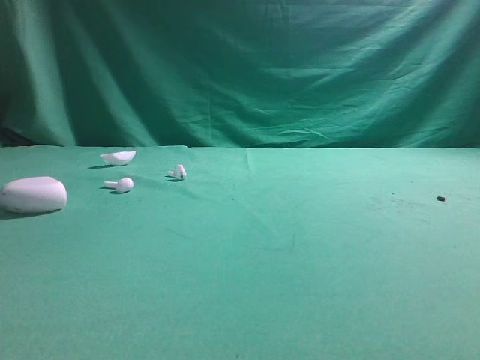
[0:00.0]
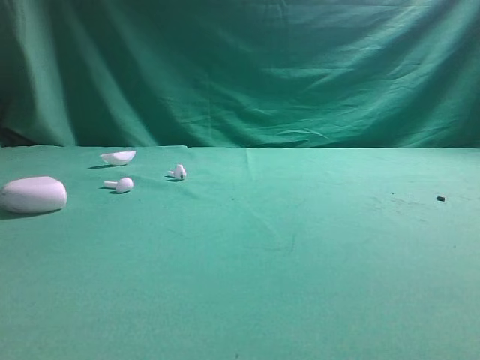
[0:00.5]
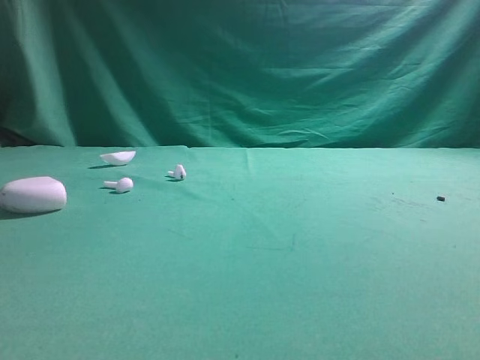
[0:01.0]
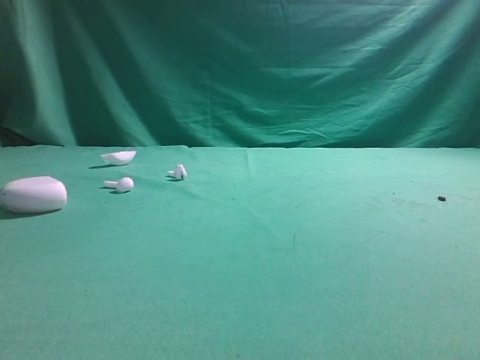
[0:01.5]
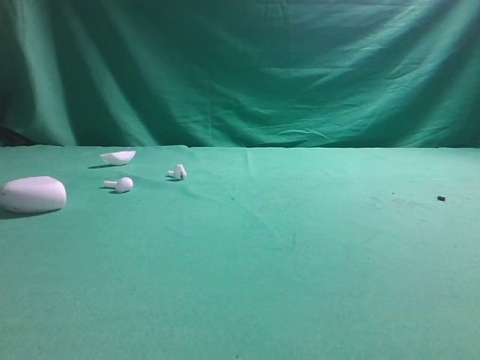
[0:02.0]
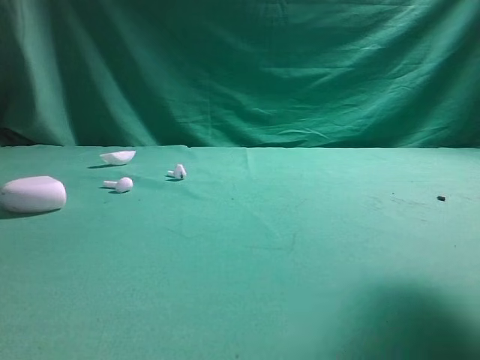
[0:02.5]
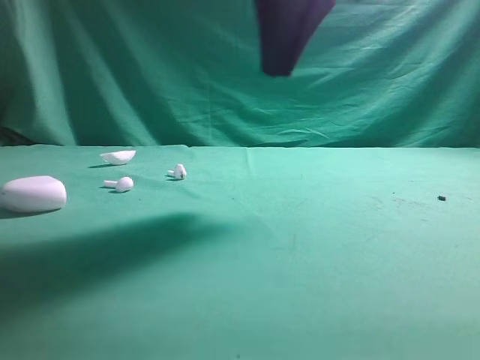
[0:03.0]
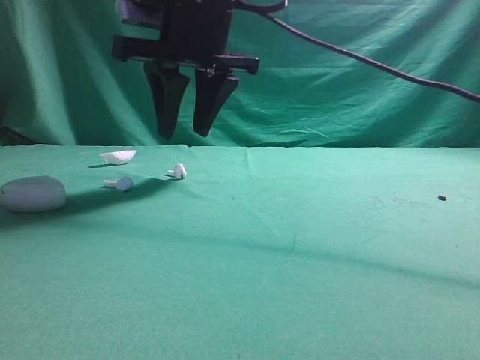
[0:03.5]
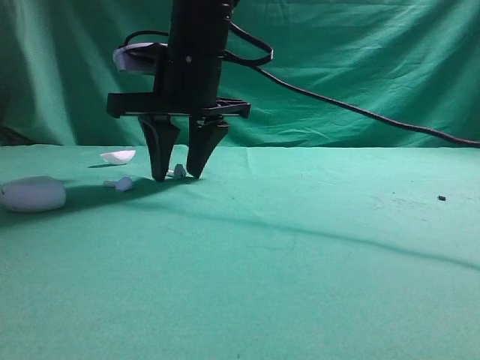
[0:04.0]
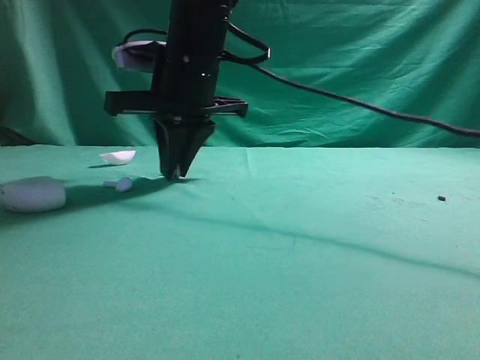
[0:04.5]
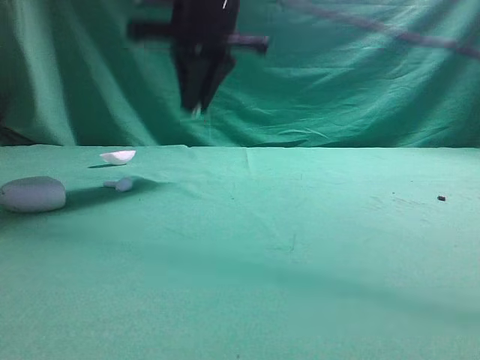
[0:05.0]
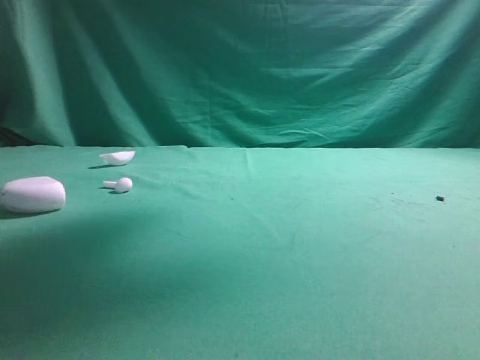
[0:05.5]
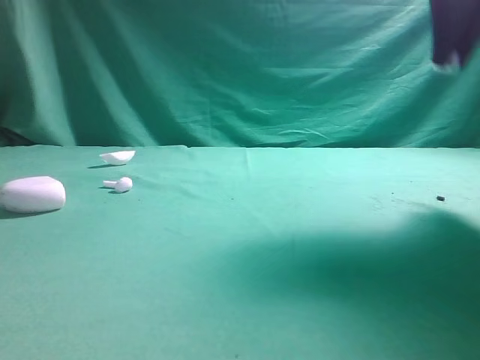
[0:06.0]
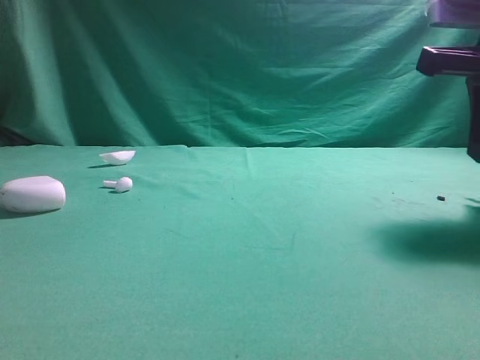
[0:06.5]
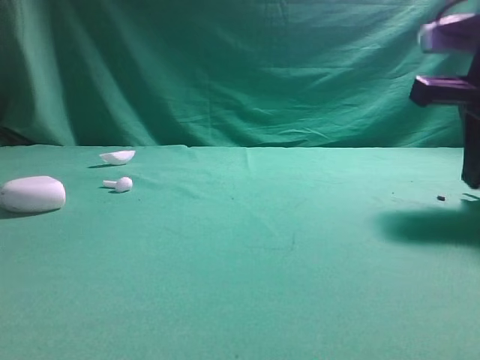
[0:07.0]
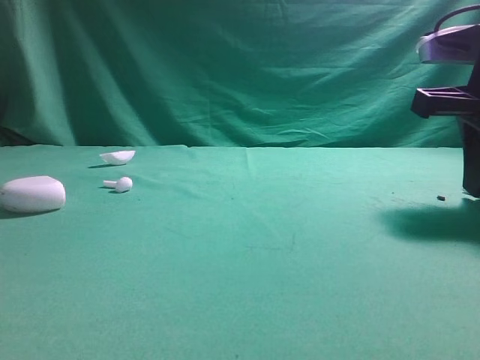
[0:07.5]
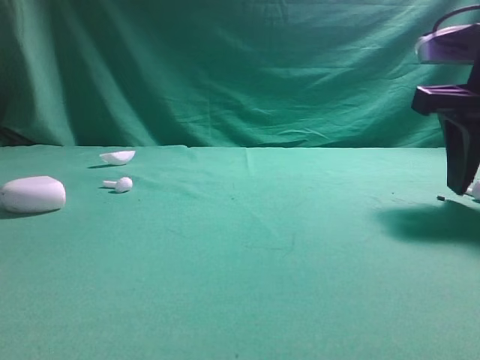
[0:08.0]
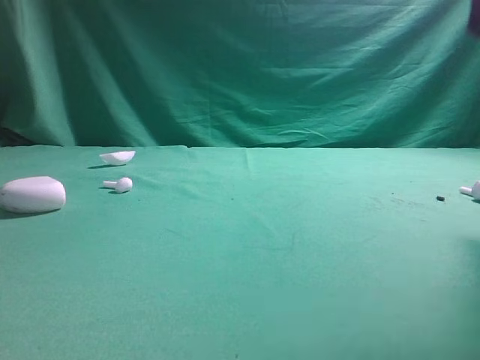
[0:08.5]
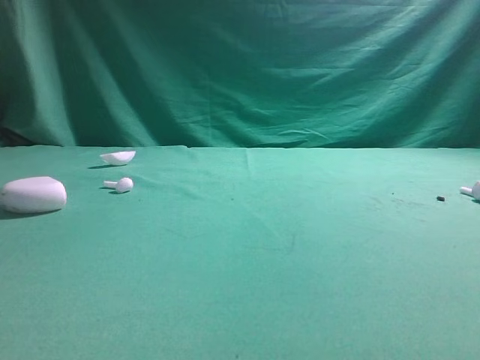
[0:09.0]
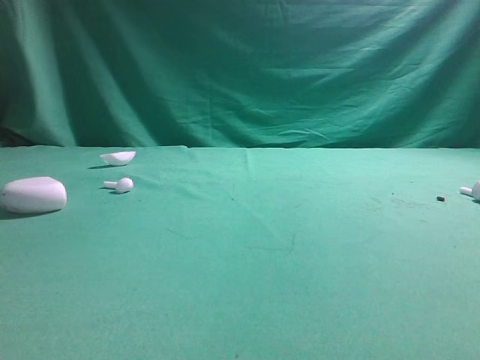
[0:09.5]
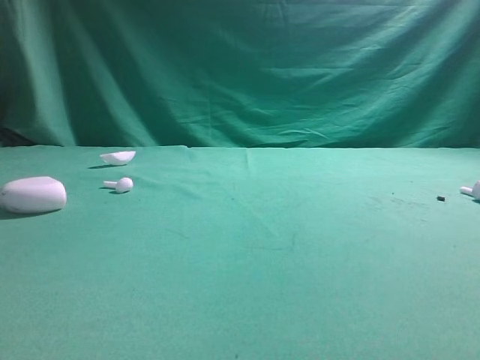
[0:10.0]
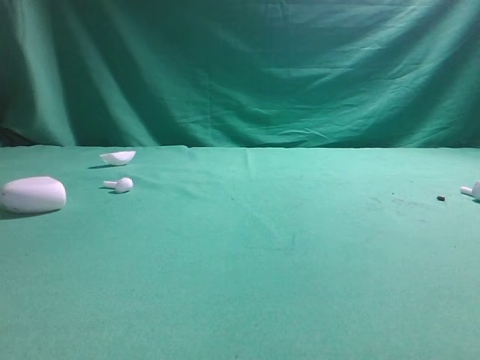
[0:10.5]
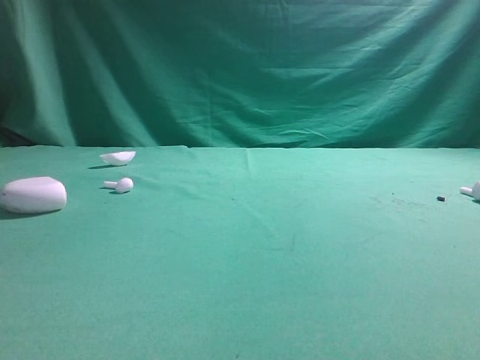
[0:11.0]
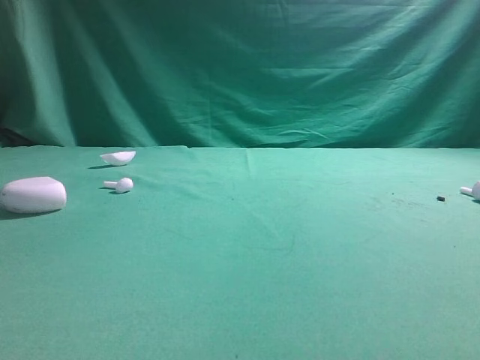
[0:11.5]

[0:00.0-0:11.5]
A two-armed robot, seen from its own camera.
Step, 0:00.0 to 0:04.5: Grasp the Bluetooth earbud.
Step, 0:05.0 to 0:08.0: Place bluetooth earbud on the right side of the table.

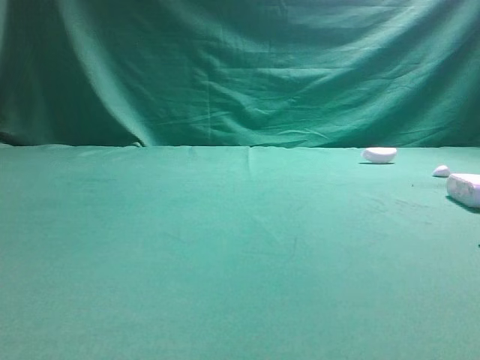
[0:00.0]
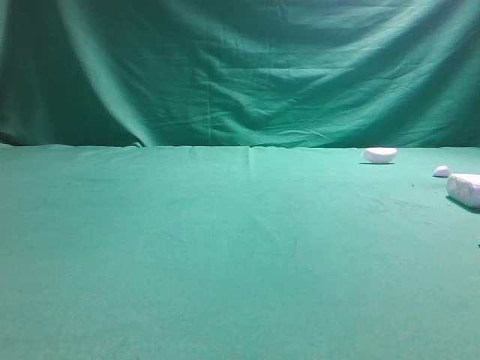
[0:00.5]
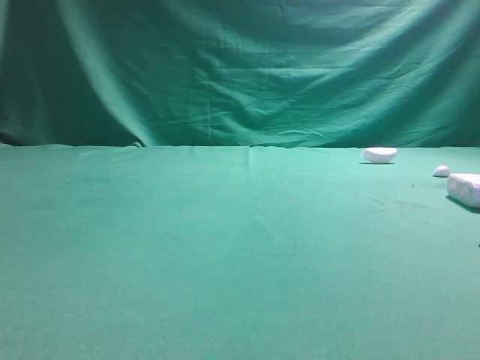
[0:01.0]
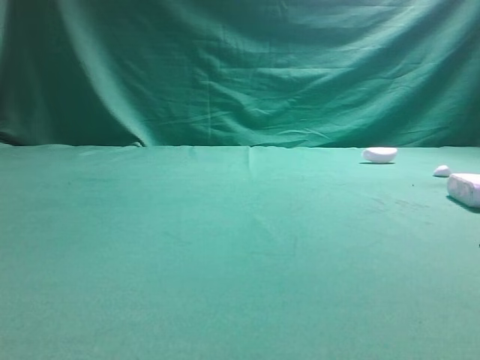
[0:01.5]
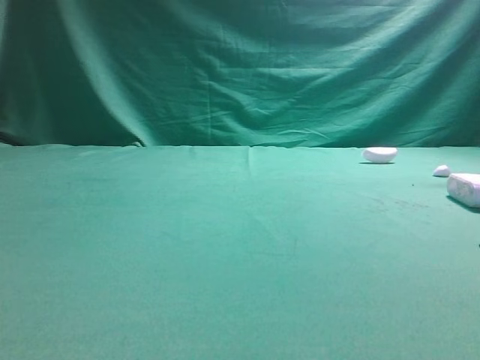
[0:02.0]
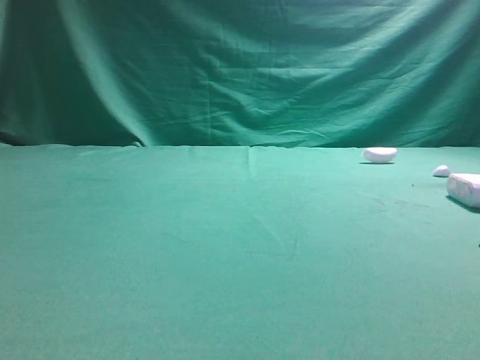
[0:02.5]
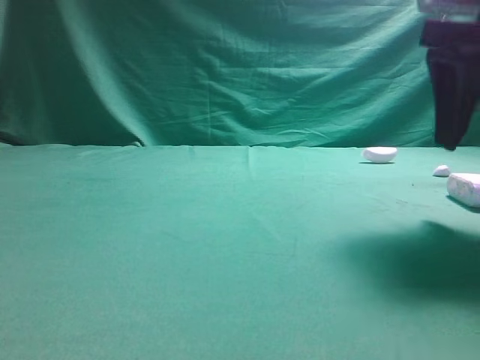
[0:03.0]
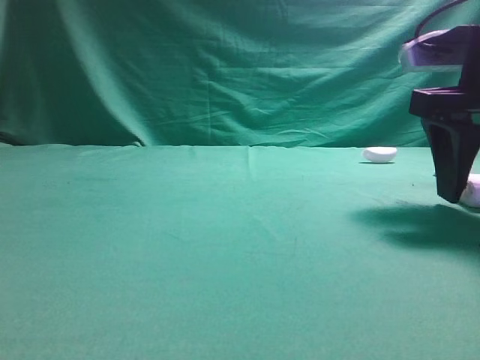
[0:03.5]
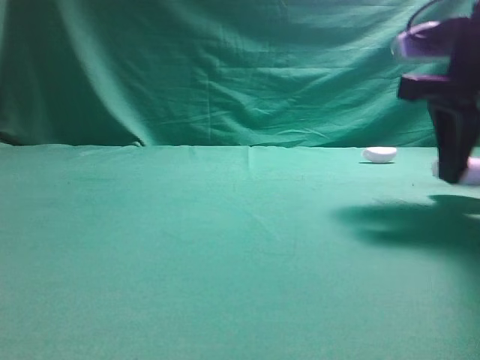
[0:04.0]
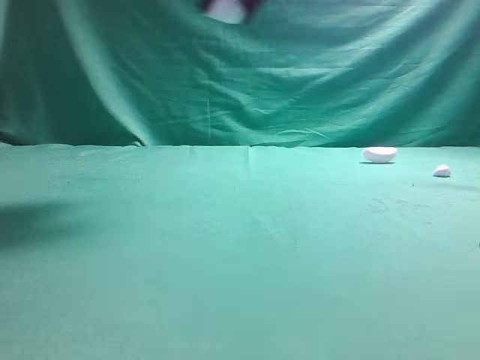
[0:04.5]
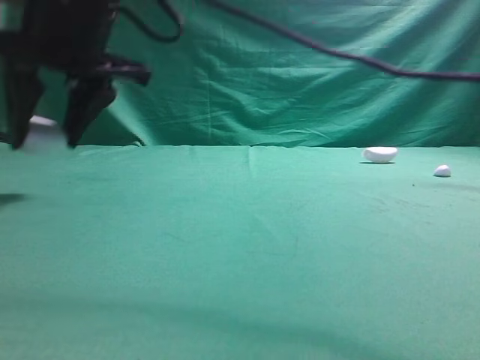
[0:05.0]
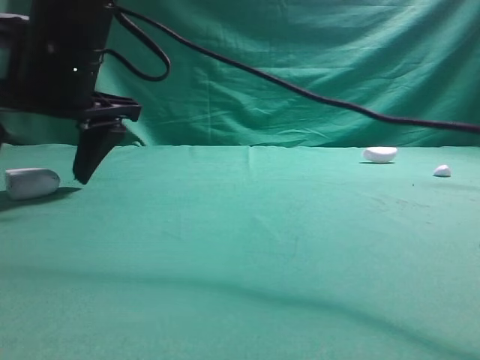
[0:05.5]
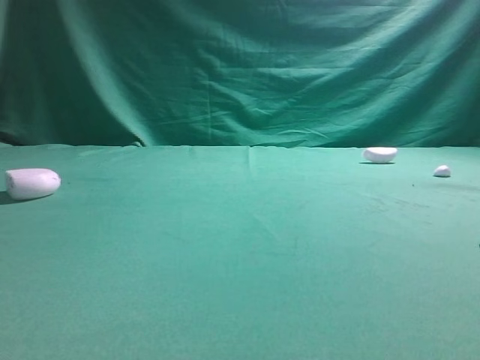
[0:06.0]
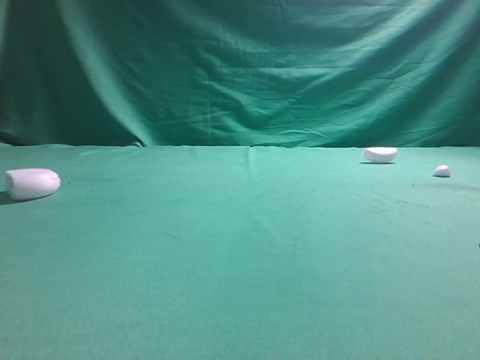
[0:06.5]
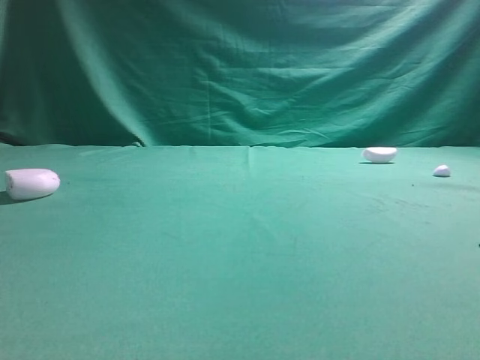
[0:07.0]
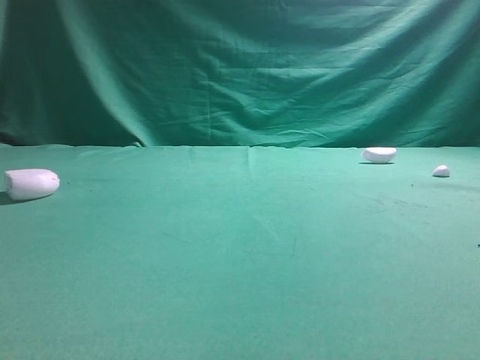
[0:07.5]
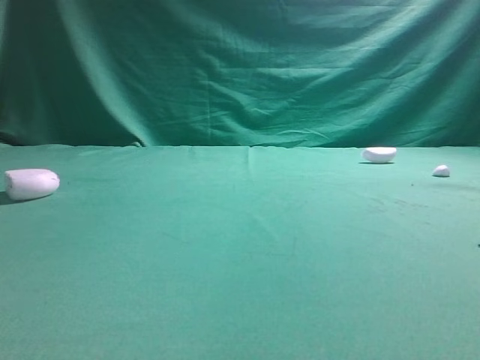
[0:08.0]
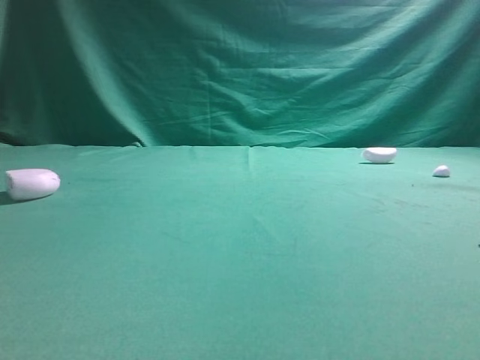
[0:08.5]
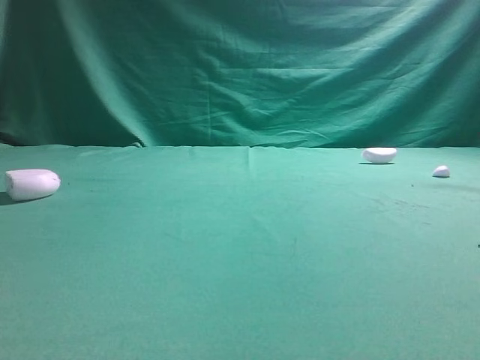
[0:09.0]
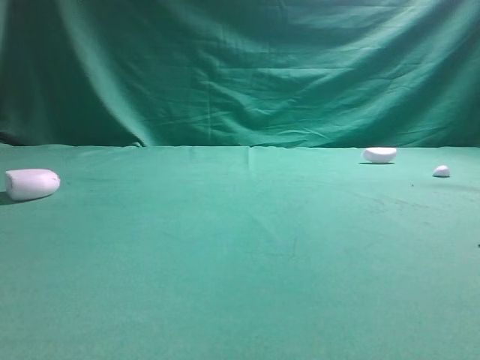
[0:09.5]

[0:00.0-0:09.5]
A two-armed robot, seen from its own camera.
Step, 0:00.0 to 0:04.0: Grasp the Bluetooth earphone case.
Step, 0:04.5 to 0:05.5: Place bluetooth earphone case on the left side of the table.
